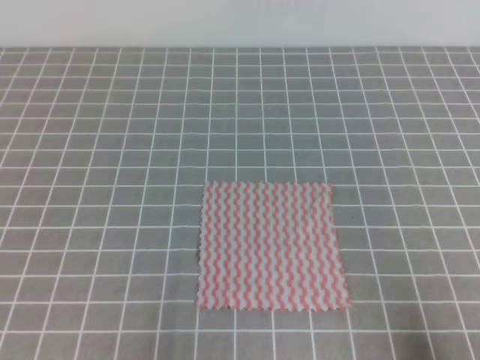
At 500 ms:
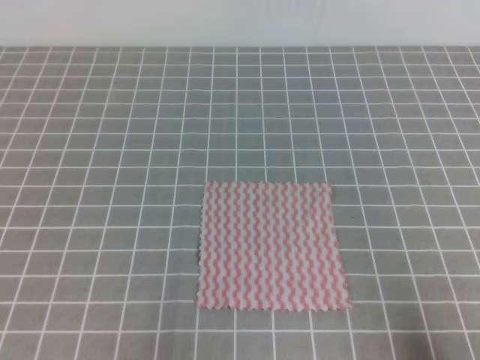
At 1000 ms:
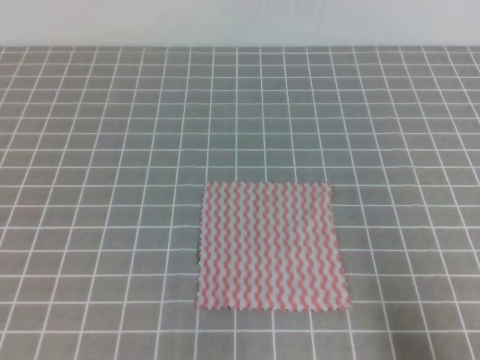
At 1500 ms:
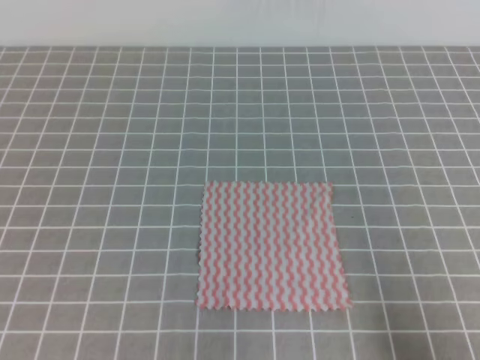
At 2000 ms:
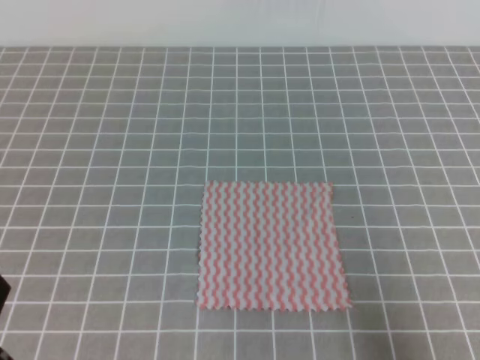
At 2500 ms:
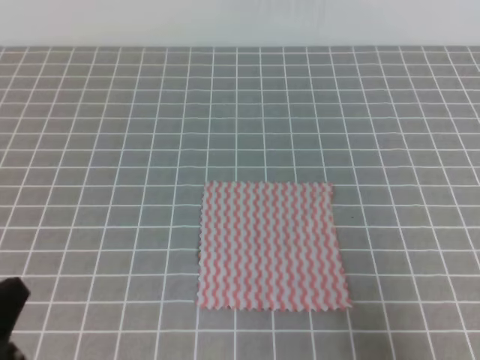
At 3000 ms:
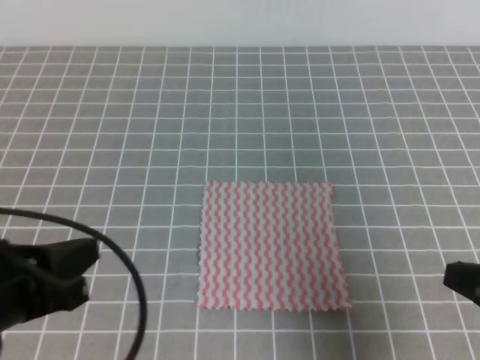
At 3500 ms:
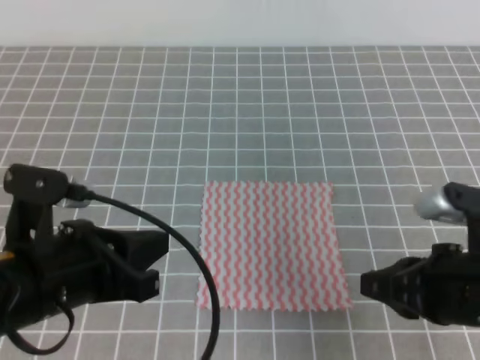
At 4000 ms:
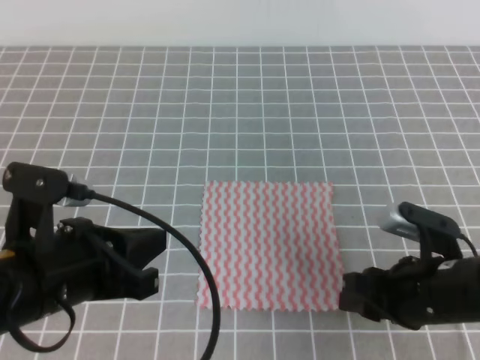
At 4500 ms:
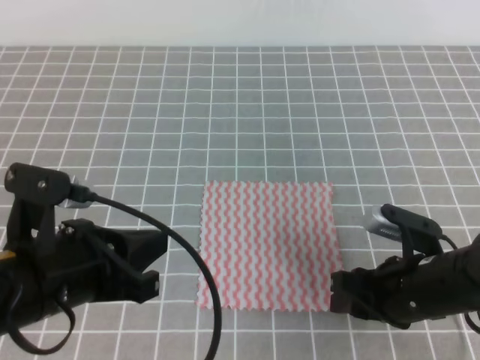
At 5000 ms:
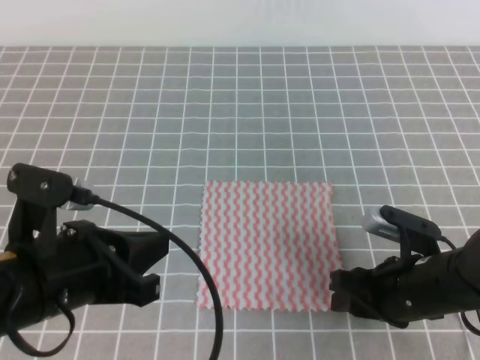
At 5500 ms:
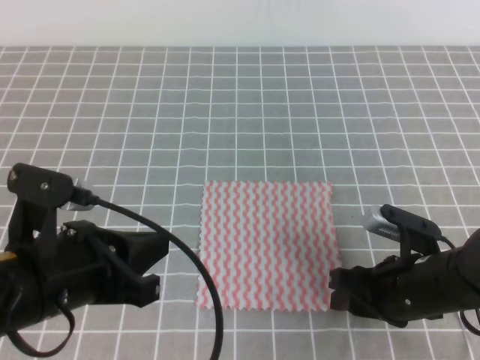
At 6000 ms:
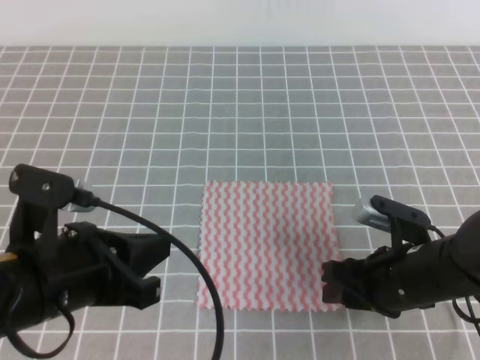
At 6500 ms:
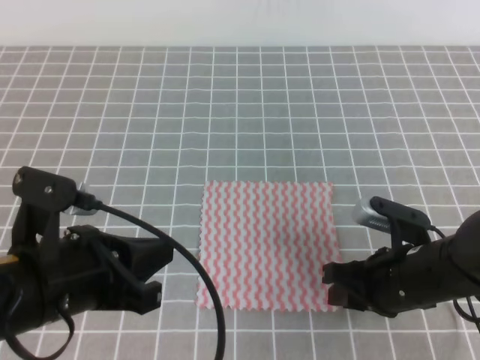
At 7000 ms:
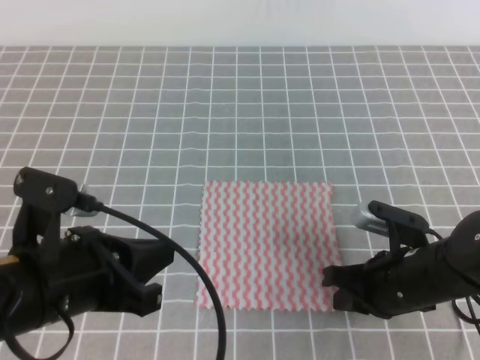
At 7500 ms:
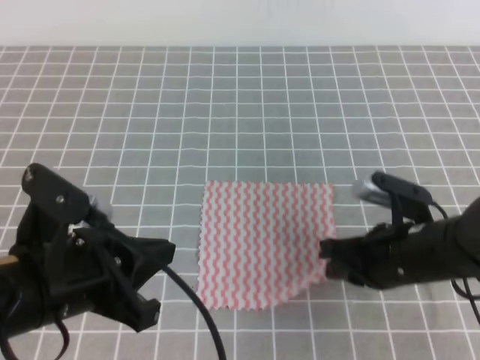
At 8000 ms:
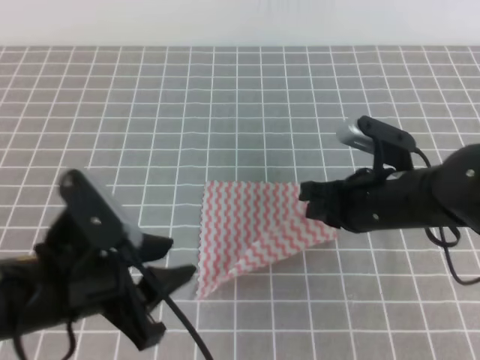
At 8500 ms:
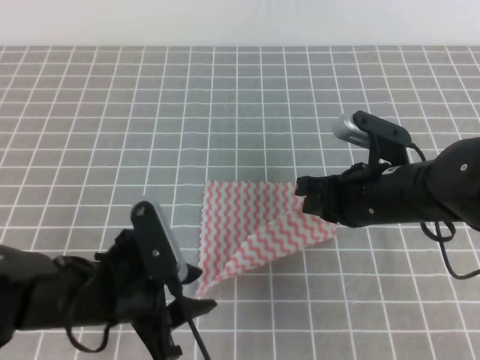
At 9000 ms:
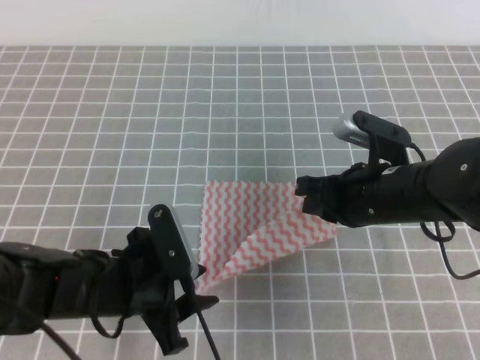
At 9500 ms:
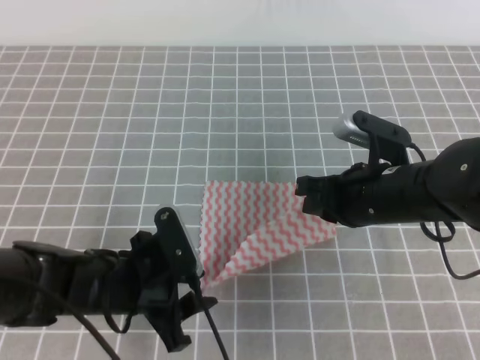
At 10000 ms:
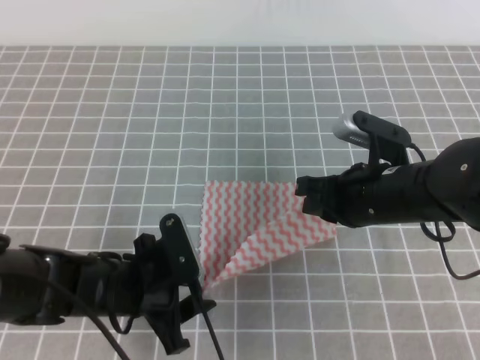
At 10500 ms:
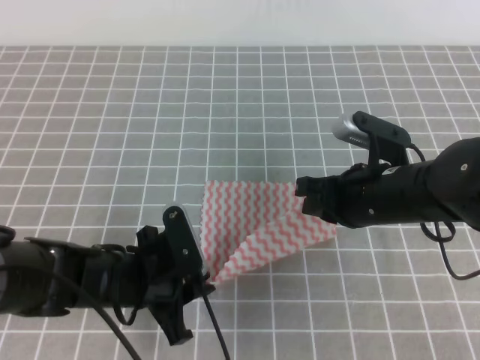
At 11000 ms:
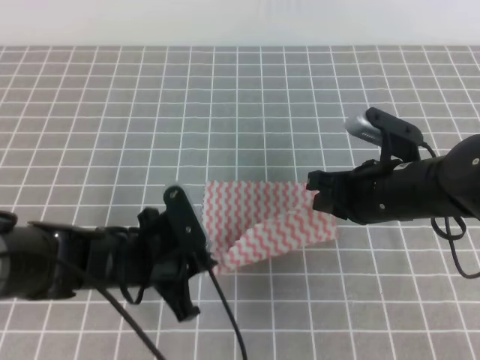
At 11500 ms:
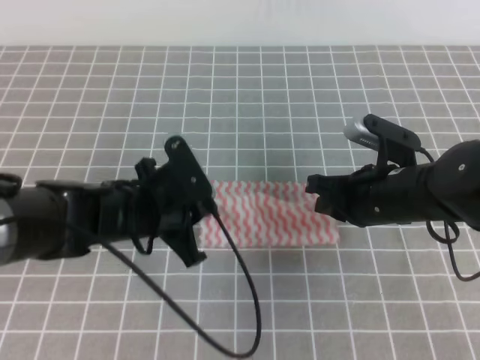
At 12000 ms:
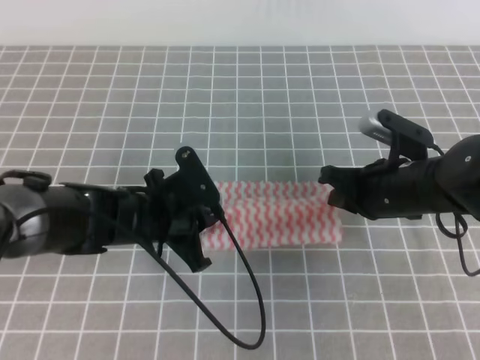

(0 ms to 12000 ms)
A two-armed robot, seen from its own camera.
2000 ms - 4000 ms: The right gripper travels forward and to the left by some 15 cm, and opens. The left gripper moves forward and to the right, some 15 cm.
4000 ms - 6000 ms: The grippers stay close to where they were, moving slightly.
6000 ms - 8000 ms: The left gripper opens up. The right gripper heads upward and forward, covering about 10 cm, and closes.
8000 ms - 10000 ms: The left gripper travels downward and forward by approximately 10 cm.
10000 ms - 12000 ms: The left gripper shifts approximately 10 cm forward, and closes its fingers.

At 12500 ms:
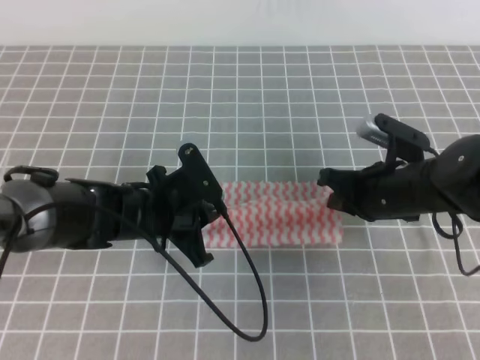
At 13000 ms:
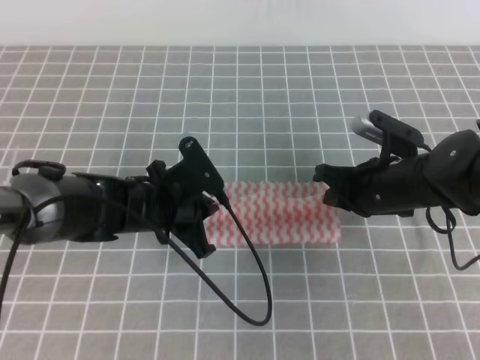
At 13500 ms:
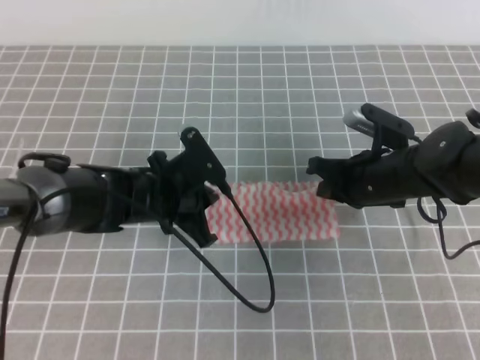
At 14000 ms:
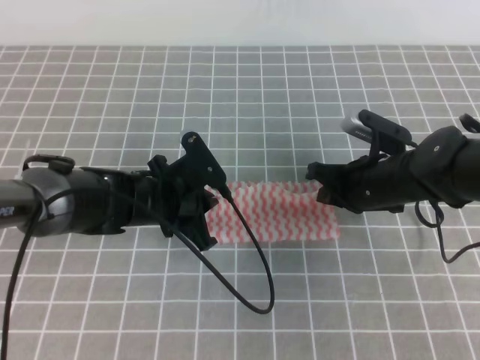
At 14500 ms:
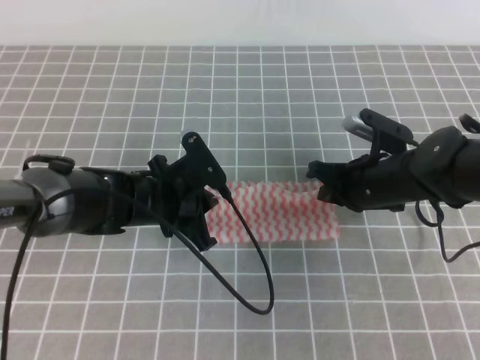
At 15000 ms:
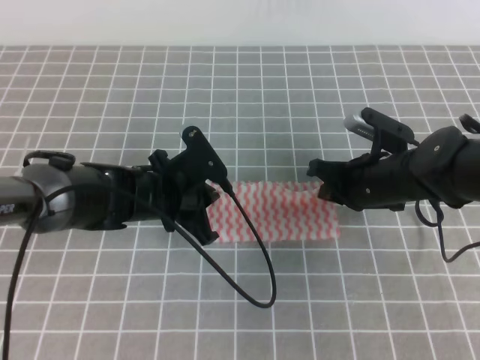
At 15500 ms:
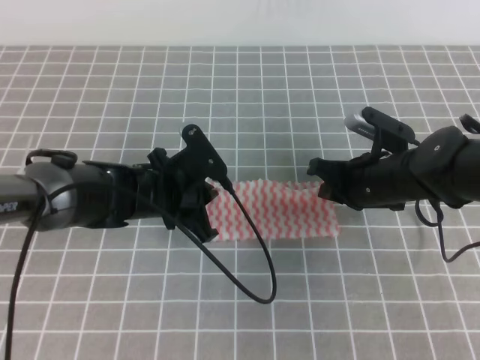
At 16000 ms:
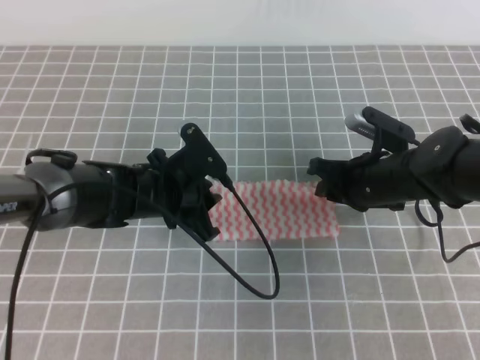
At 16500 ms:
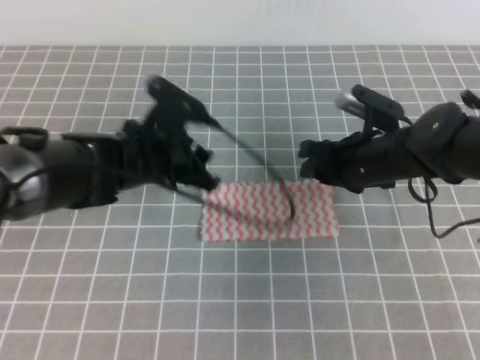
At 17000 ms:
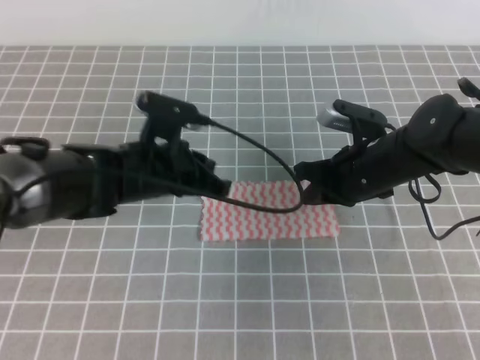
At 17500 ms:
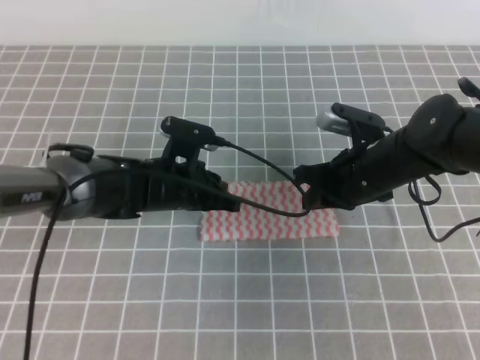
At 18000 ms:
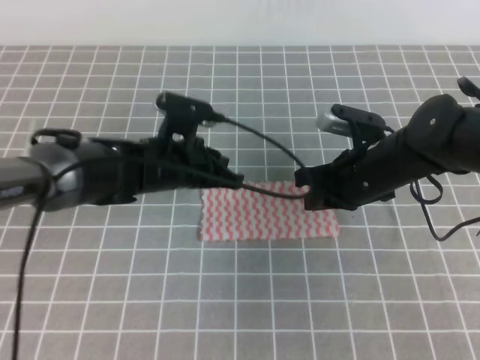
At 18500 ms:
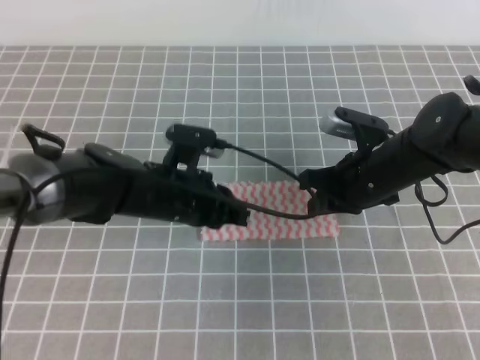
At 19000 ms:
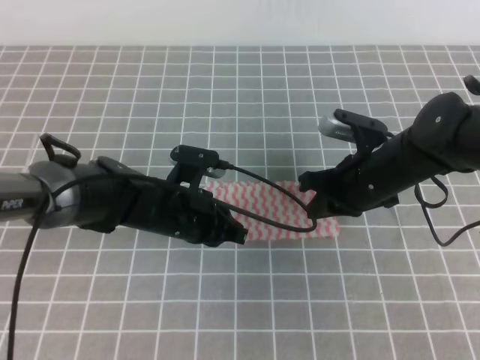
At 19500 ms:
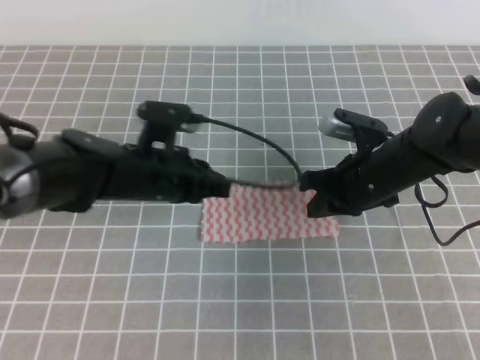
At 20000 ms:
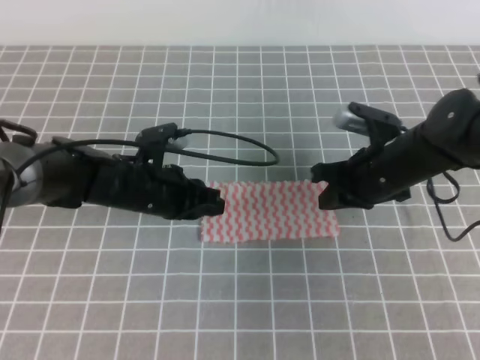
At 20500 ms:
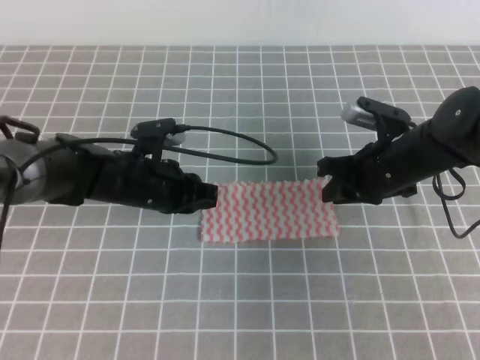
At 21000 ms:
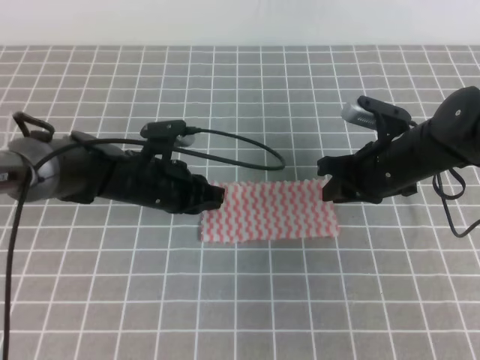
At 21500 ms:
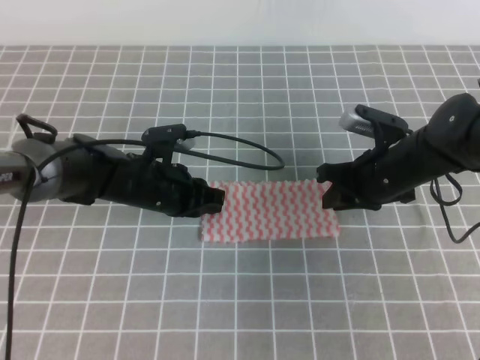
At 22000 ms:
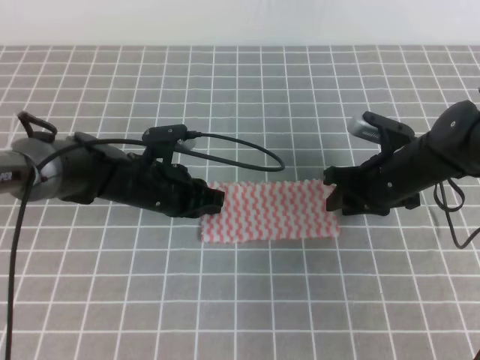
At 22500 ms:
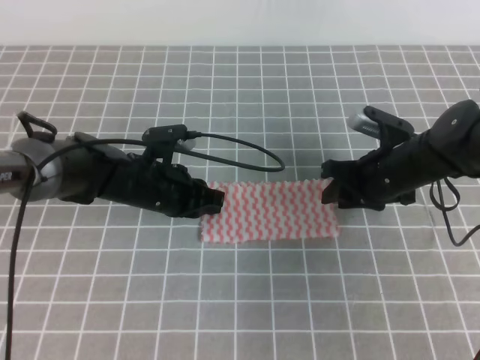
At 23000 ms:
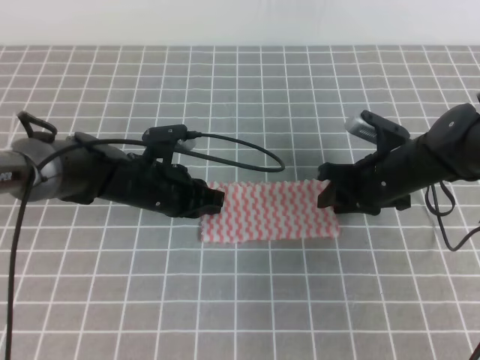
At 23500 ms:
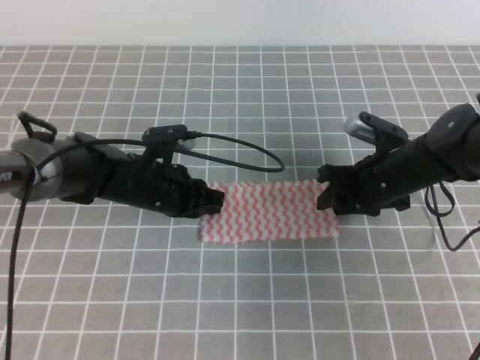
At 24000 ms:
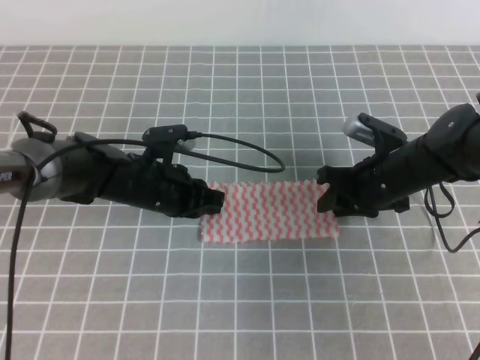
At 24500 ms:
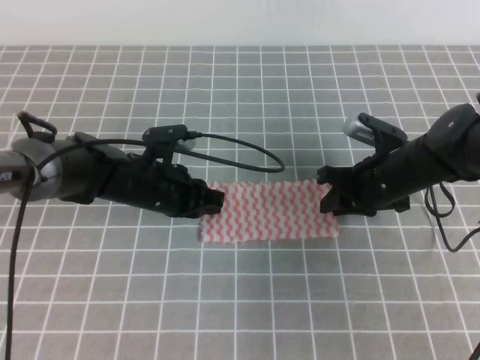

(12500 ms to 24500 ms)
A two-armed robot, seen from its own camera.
12500 ms - 14500 ms: There are only small adjustments of the grippers.
14500 ms - 16500 ms: The left gripper shifts some 5 cm upward, and opens up. Meanwhile the right gripper opens.
16500 ms - 18500 ms: The left gripper closes; the right gripper closes up.
18500 ms - 20500 ms: The left gripper moves about 5 cm. Meanwhile the right gripper opens.
20500 ms - 22500 ms: The right gripper opens up.
22500 ms - 24500 ms: The right gripper closes its fingers.

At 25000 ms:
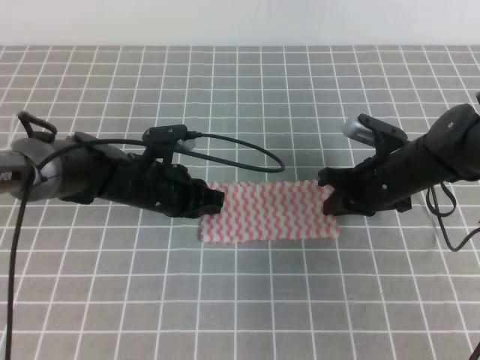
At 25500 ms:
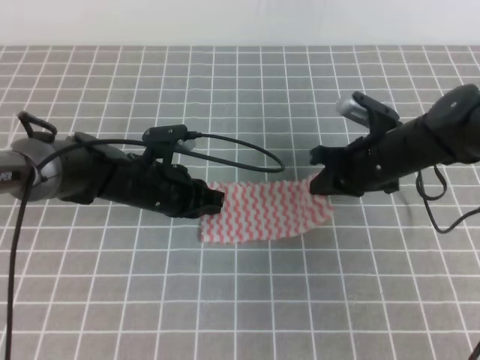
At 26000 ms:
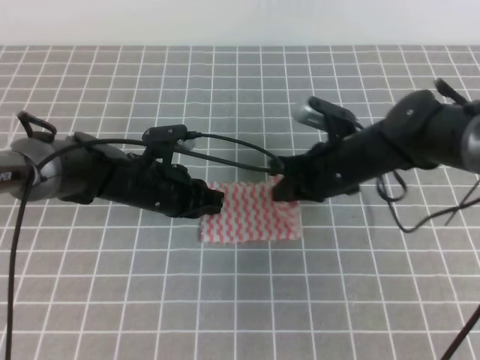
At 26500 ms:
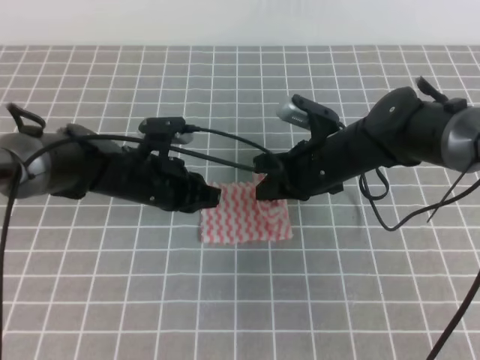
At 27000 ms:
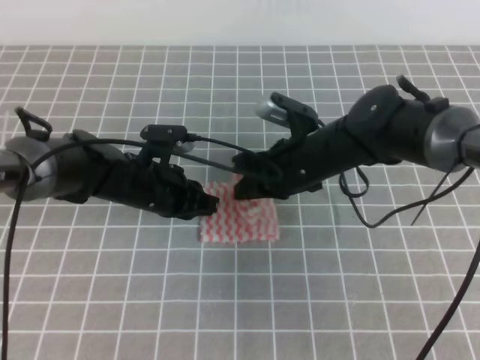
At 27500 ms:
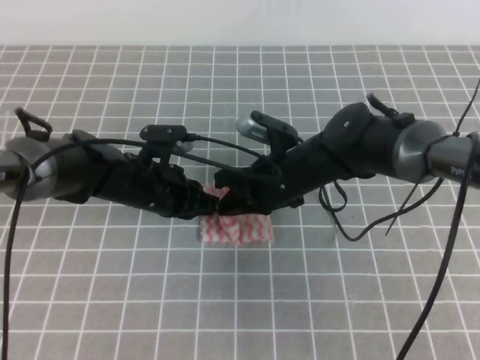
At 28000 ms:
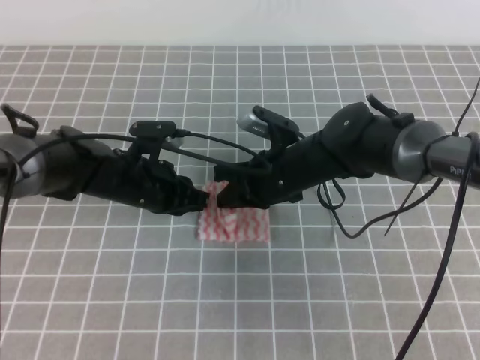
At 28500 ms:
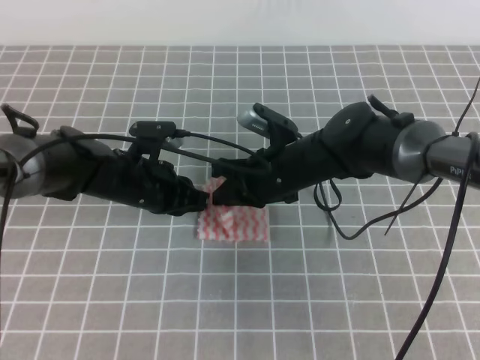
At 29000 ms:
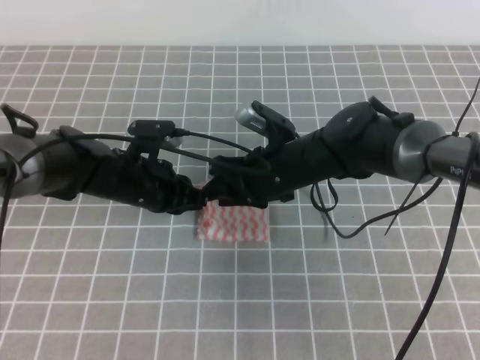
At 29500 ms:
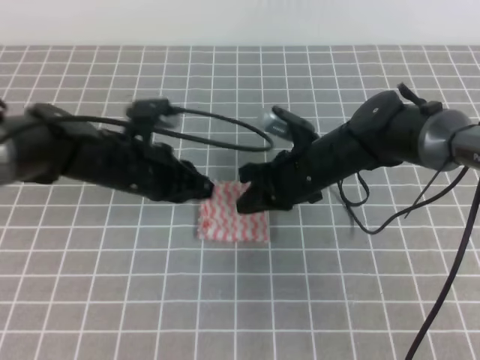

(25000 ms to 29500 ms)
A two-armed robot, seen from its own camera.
25000 ms - 27000 ms: The right gripper shifts approximately 10 cm to the left.
27000 ms - 29500 ms: The right gripper opens and closes again.
